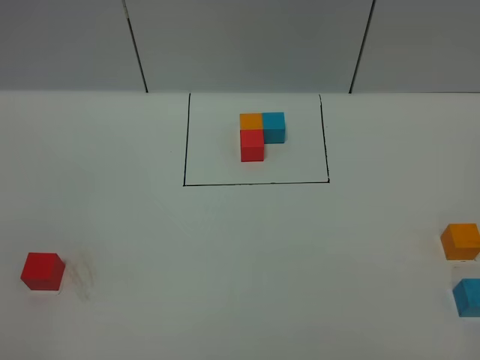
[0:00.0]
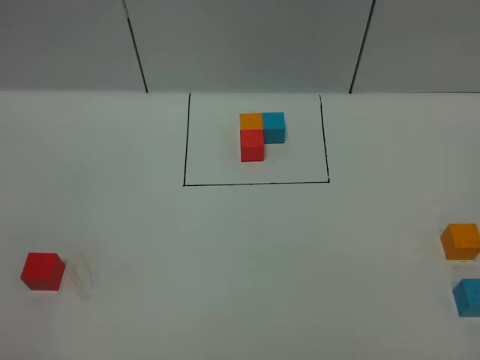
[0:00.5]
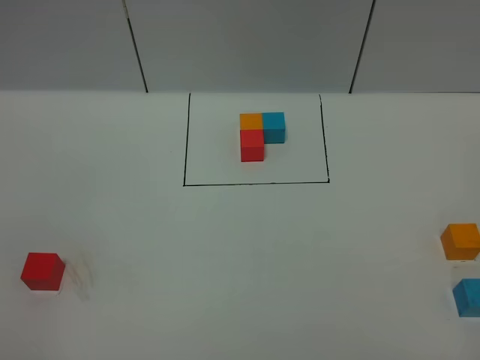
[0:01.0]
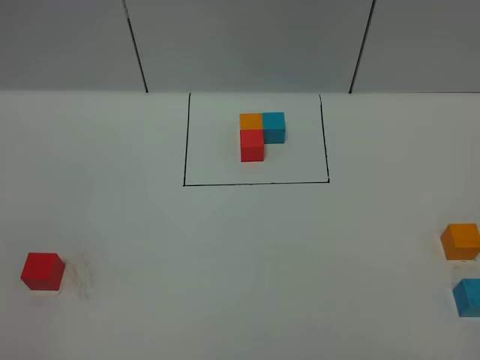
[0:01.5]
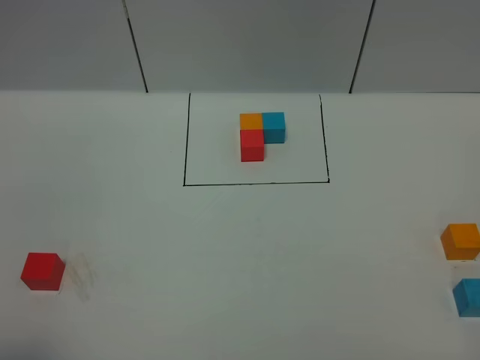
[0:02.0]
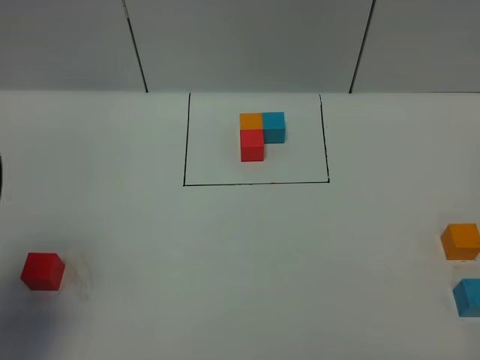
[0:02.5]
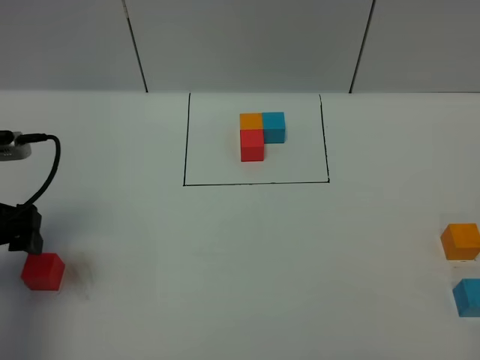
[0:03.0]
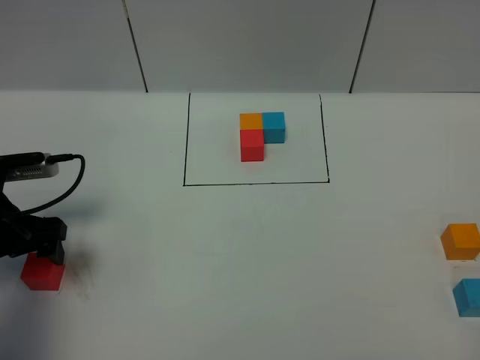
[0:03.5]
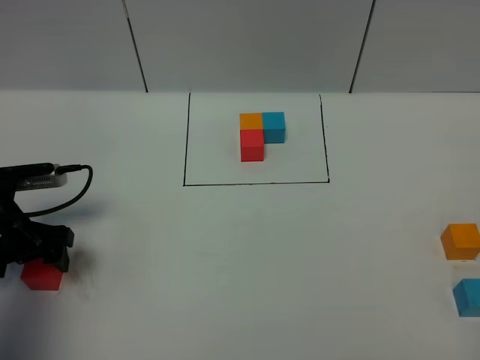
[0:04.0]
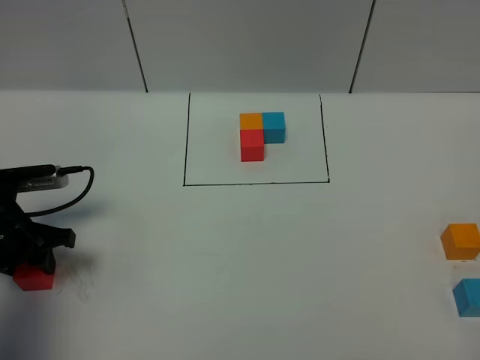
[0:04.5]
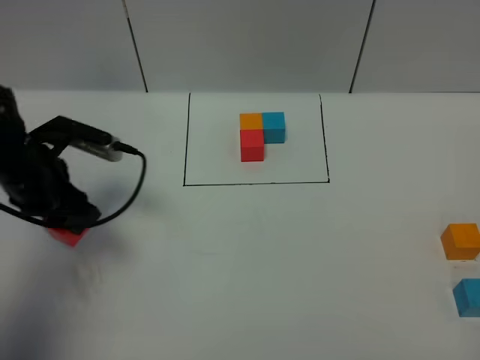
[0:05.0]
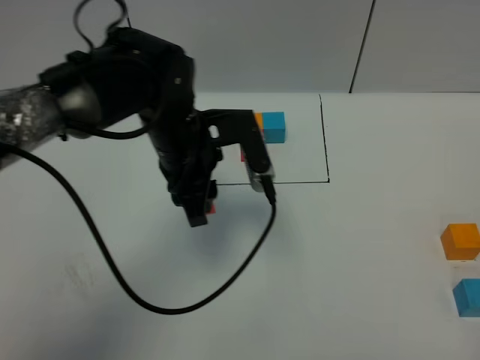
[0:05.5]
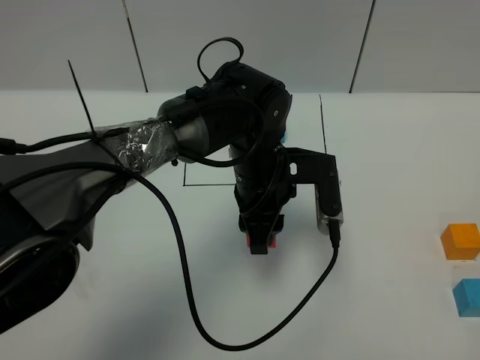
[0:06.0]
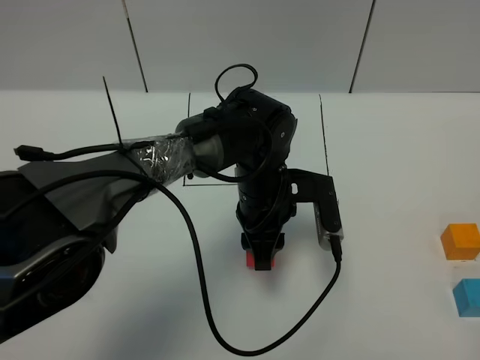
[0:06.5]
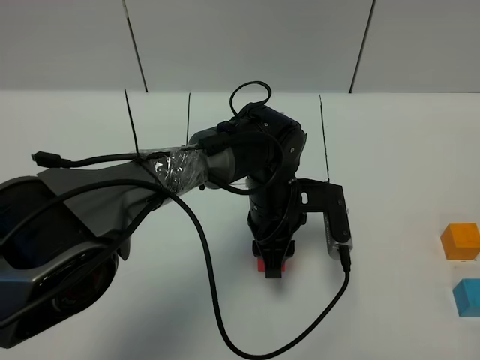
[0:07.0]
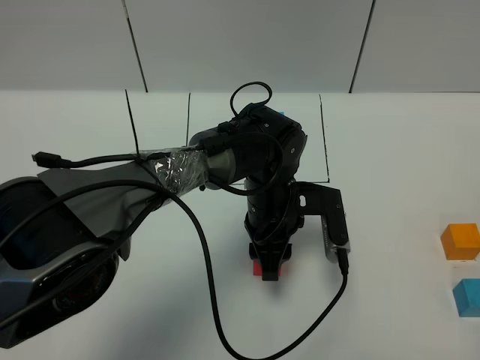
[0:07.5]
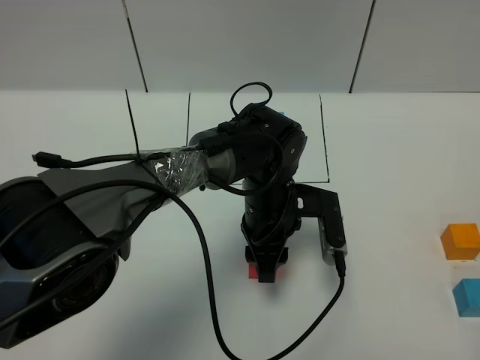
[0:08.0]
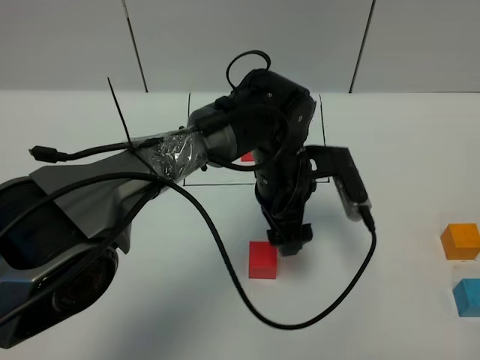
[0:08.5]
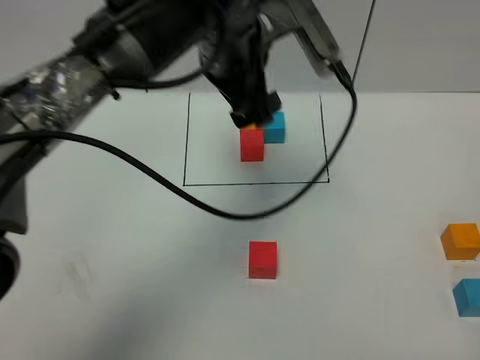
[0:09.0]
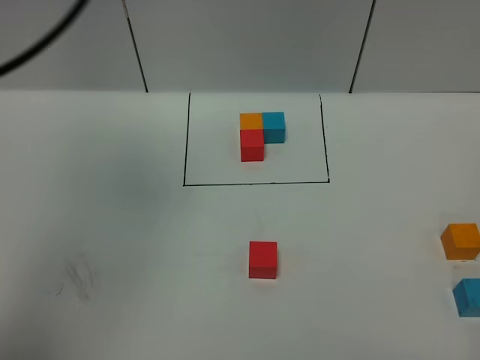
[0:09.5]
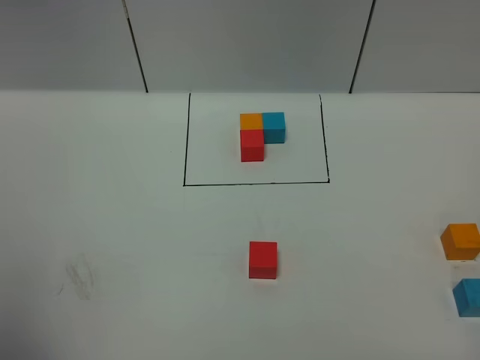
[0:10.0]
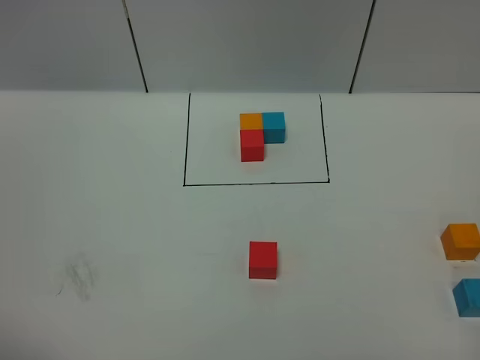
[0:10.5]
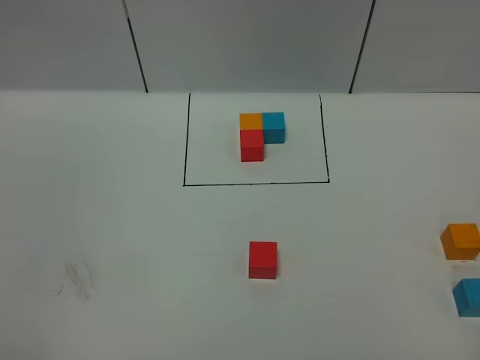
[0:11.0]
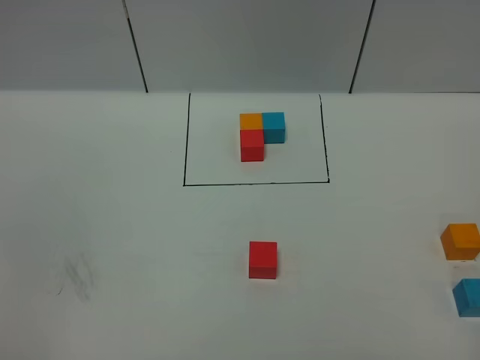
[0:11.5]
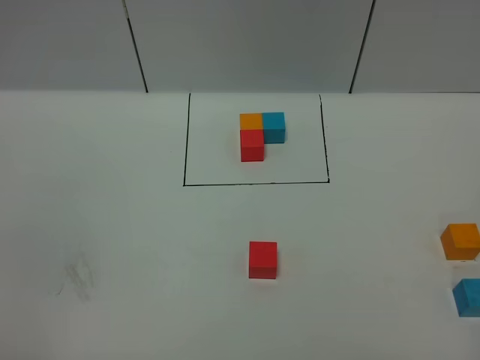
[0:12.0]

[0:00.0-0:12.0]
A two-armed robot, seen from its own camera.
Task of the whole recording: According to the building block template in front, assemble the scattered blocks together.
Step, 0:02.5 to 0:08.0: Put the red cube in the center of the table.
0:02.0 to 0:04.0: The left gripper heads forward and downward, covering roughly 30 cm.
0:04.0 to 0:06.0: The left gripper moves to the right, some 35 cm, and closes.
0:06.0 to 0:08.0: The left gripper shifts some 5 cm downward.
0:08.0 to 0:10.0: The left gripper travels upward, to the left and backward by approximately 60 cm, and opens its fingers.

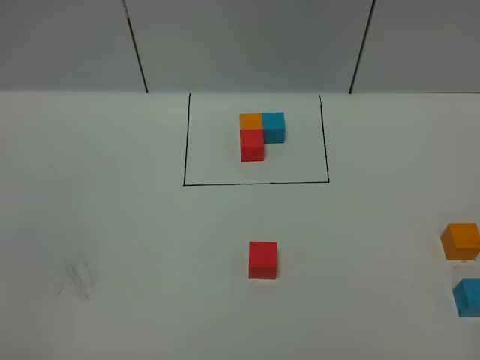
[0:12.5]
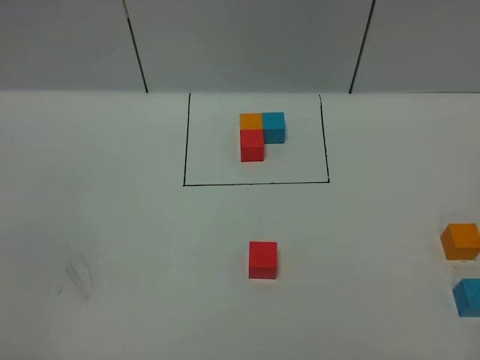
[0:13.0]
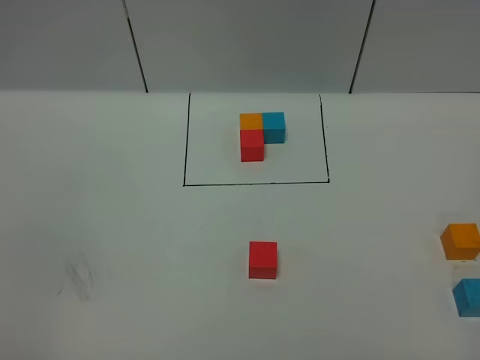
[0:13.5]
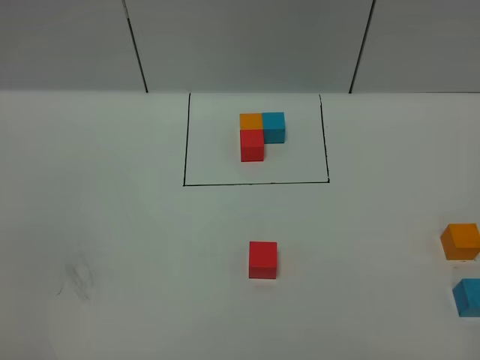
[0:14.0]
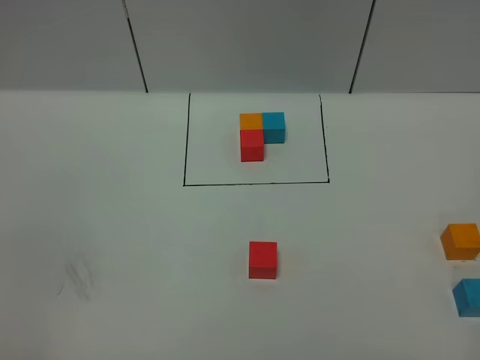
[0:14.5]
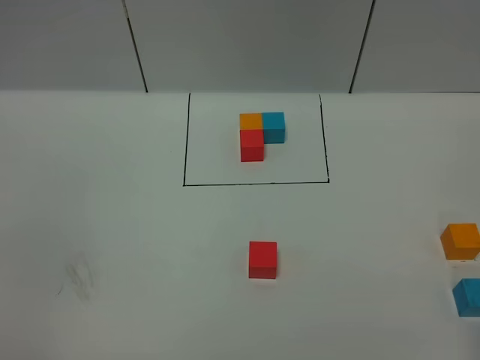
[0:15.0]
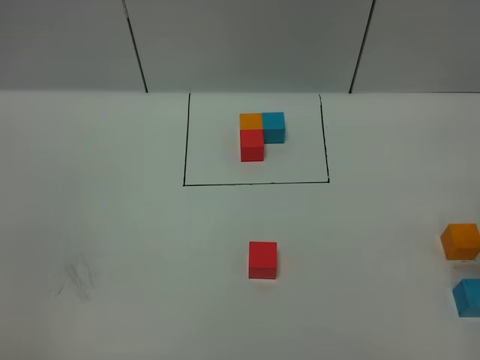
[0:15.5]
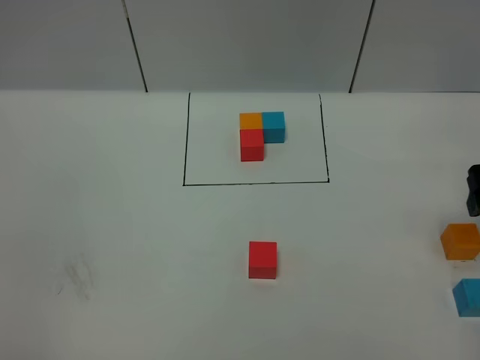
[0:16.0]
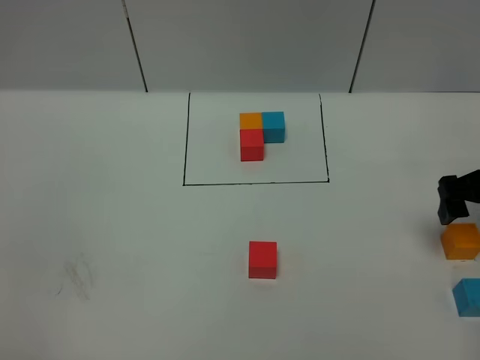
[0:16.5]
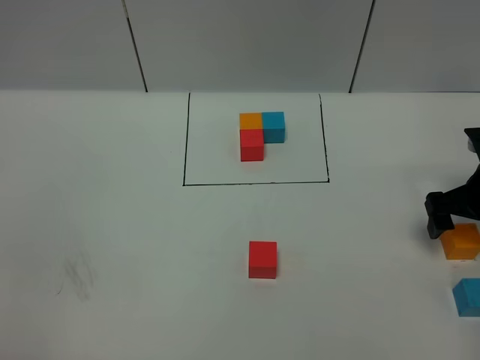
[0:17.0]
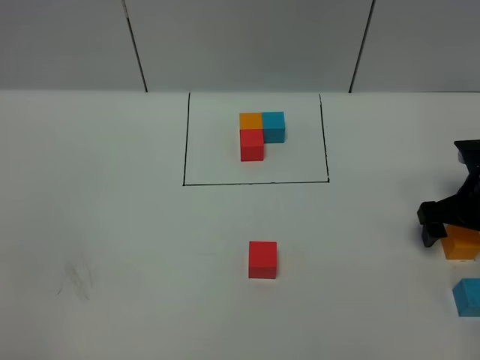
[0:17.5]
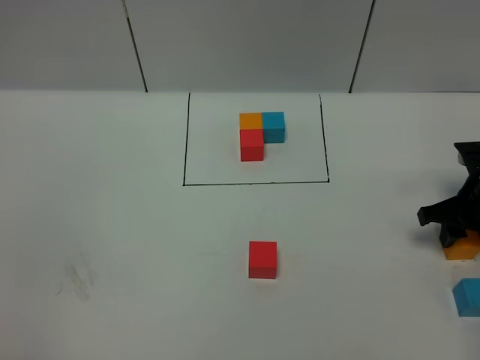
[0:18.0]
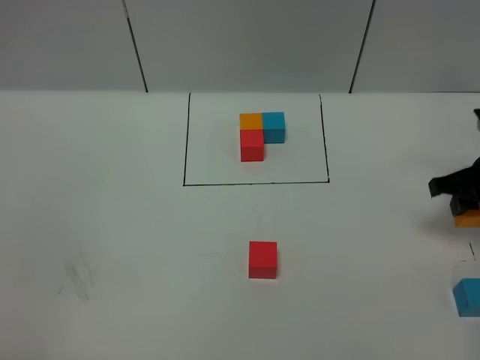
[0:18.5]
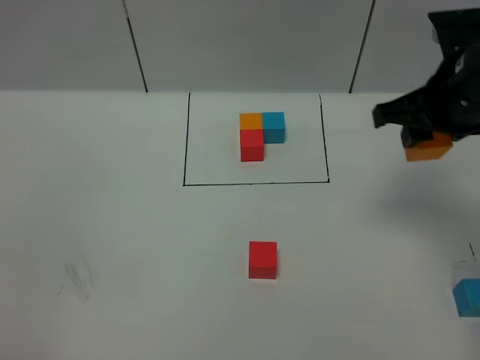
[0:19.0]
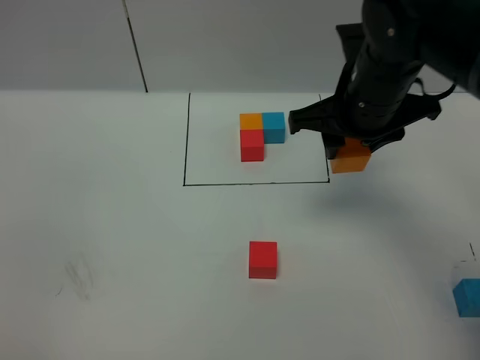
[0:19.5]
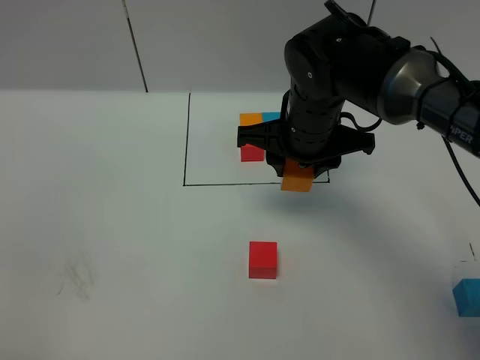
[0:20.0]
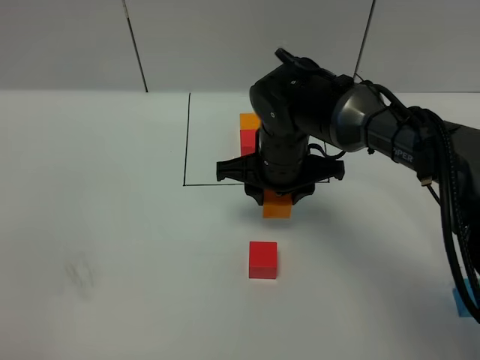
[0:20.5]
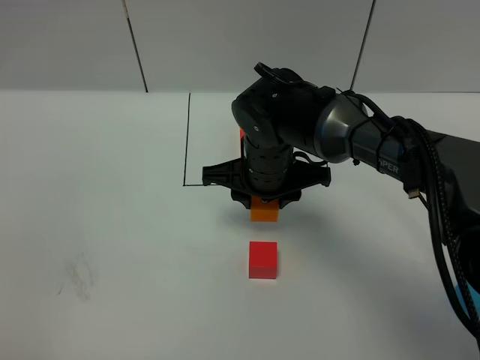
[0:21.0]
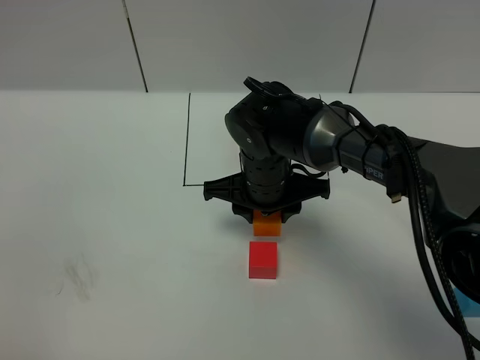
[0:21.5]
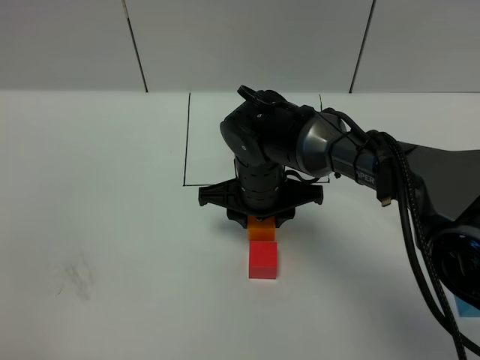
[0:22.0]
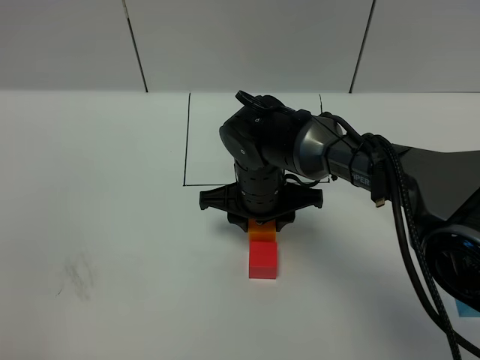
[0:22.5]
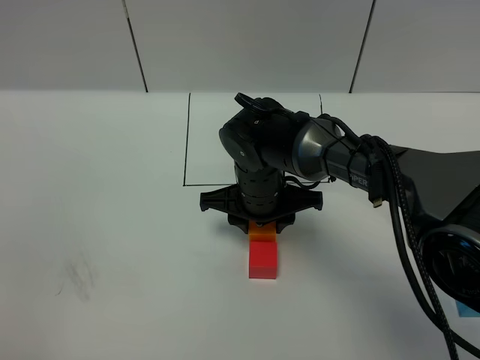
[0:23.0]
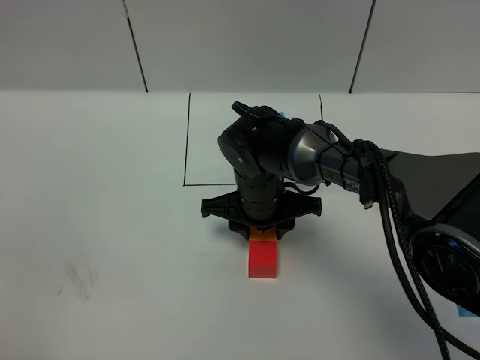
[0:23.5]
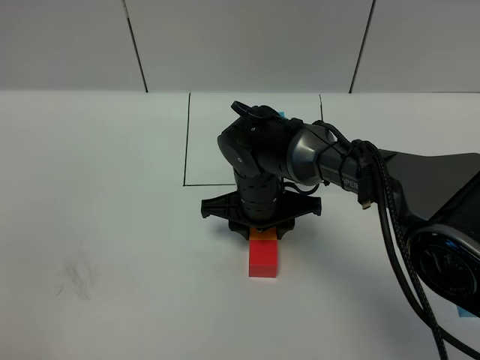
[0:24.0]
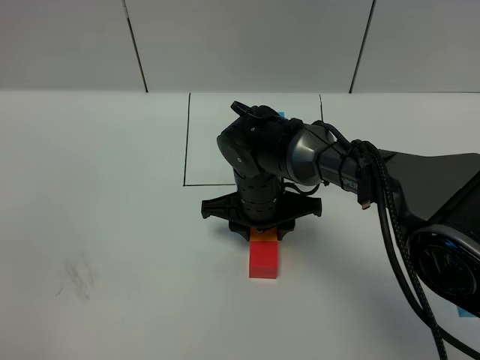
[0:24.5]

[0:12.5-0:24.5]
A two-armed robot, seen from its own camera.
Task of the whole recording: According to the building block template in front, assemble the scattered blocks together.
0:14.5 to 0:16.5: The right gripper moves forward, approximately 35 cm, and opens.
0:16.5 to 0:18.5: The right gripper closes its fingers.
0:18.5 to 0:20.5: The right gripper goes some 30 cm to the left.
0:20.5 to 0:22.5: The right gripper ends up roughly 5 cm from where it was.
0:22.5 to 0:24.5: There are only small adjustments of the grippers.

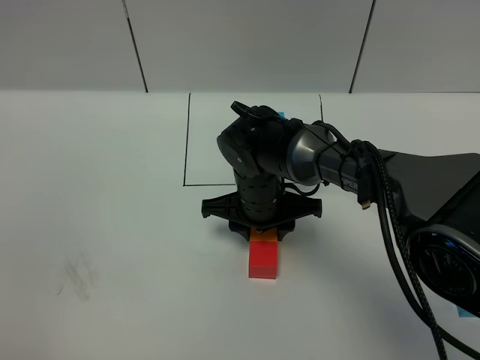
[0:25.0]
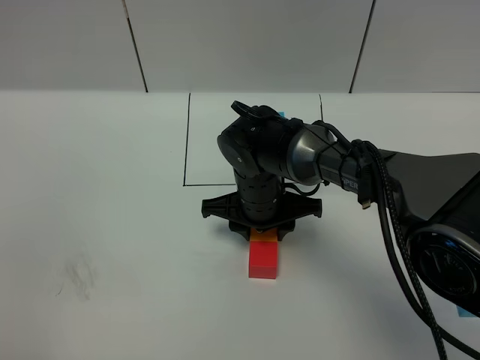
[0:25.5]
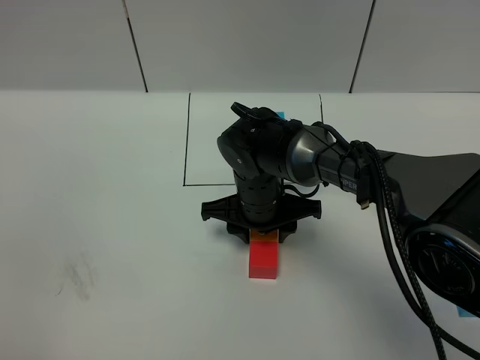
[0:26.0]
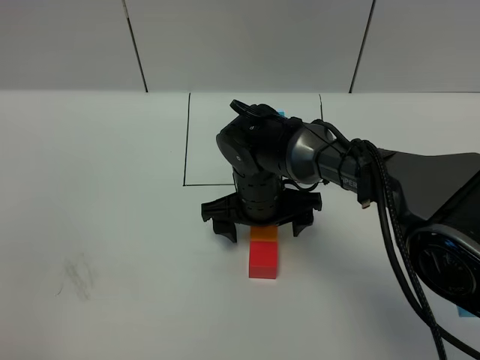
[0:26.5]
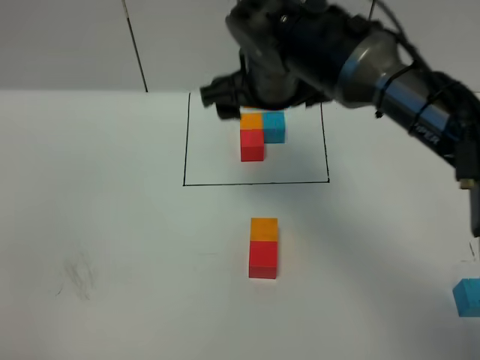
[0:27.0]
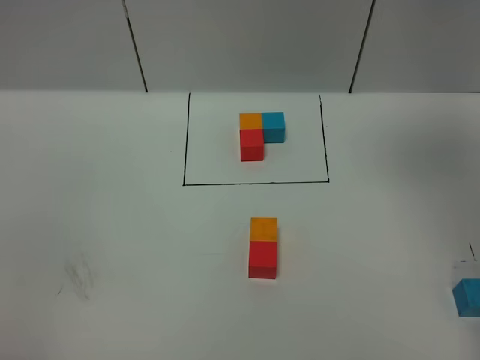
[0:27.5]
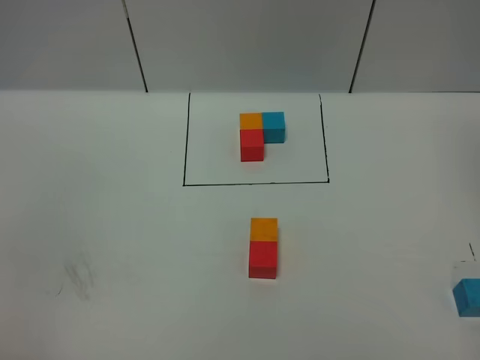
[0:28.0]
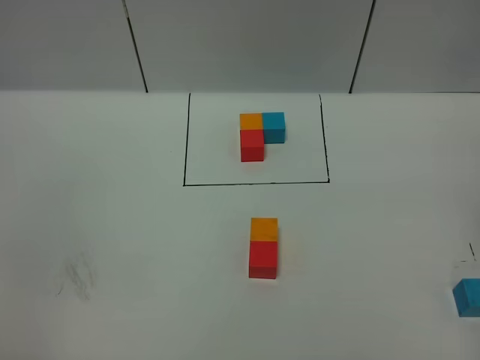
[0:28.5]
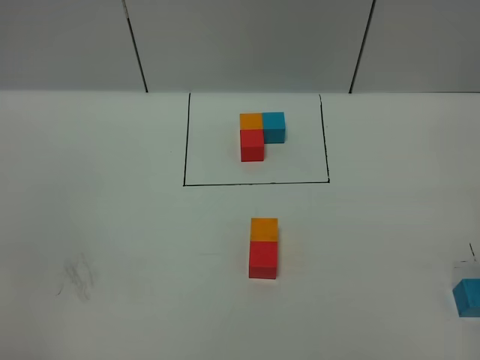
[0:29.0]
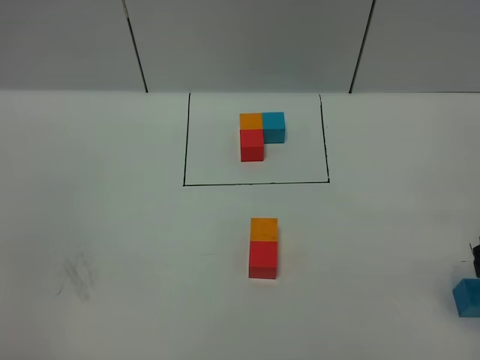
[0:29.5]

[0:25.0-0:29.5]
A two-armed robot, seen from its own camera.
Task of the whole recording: According to the building block template in front, assemble the scattered blocks together.
0:25.0 to 0:27.0: The right gripper moves upward, roughly 20 cm, and opens its fingers.
0:27.0 to 0:29.5: The right gripper travels to the right and backward by some 30 cm, and moves about 20 cm upward and comes back.
